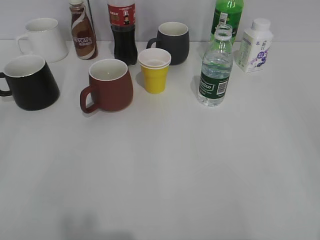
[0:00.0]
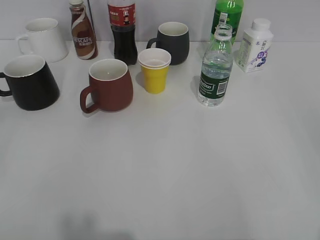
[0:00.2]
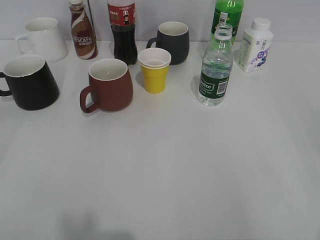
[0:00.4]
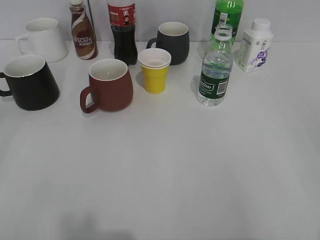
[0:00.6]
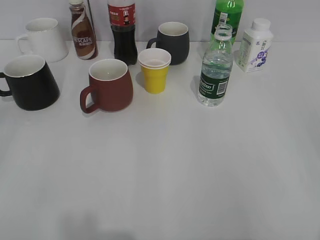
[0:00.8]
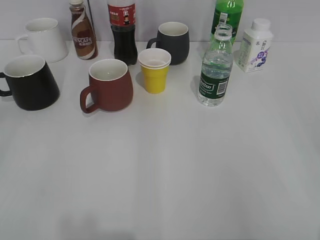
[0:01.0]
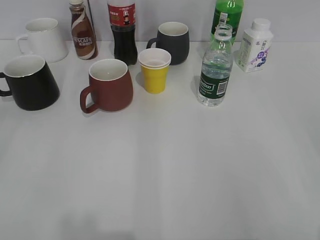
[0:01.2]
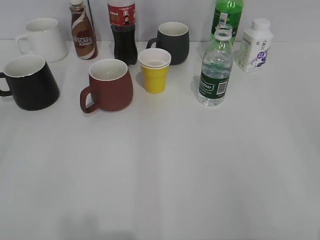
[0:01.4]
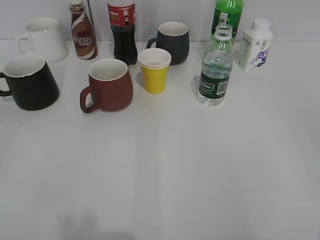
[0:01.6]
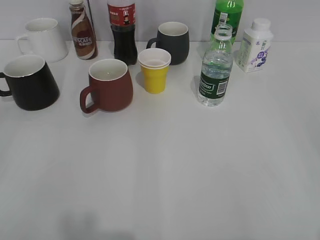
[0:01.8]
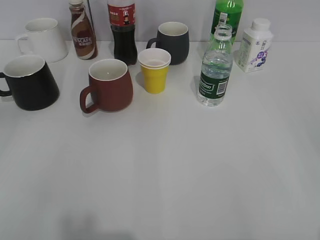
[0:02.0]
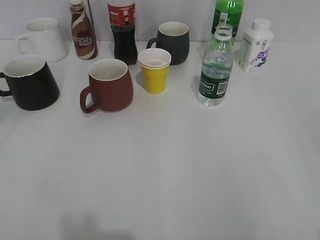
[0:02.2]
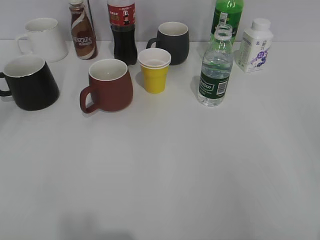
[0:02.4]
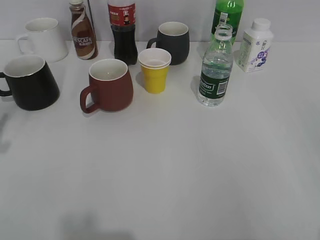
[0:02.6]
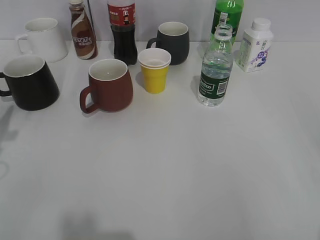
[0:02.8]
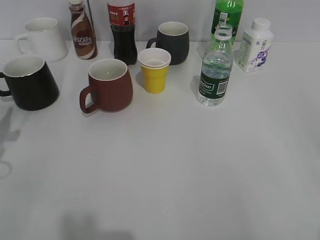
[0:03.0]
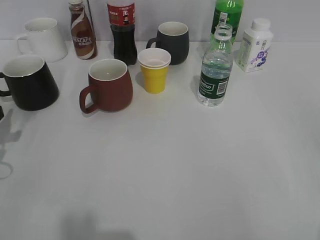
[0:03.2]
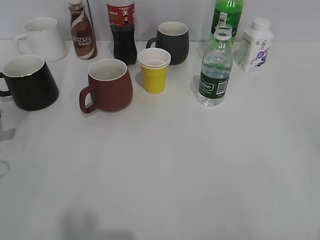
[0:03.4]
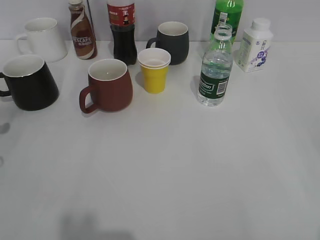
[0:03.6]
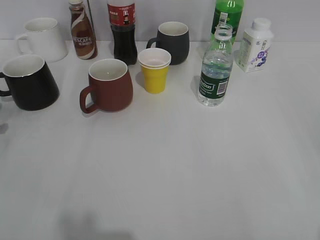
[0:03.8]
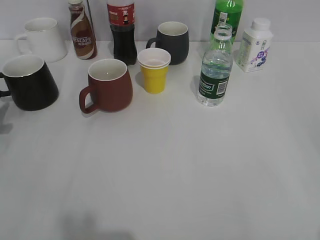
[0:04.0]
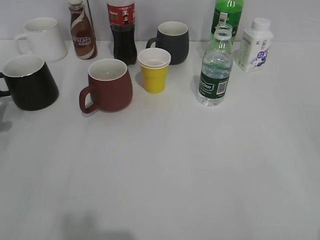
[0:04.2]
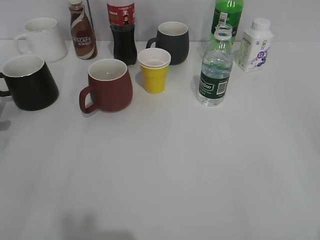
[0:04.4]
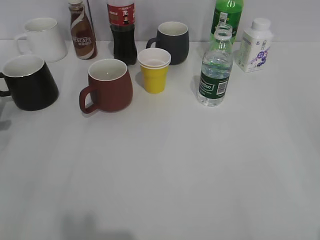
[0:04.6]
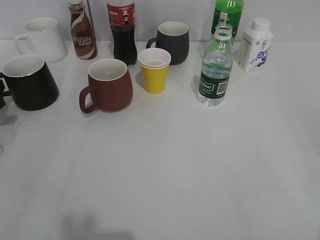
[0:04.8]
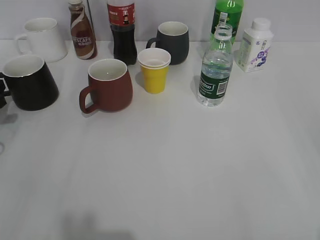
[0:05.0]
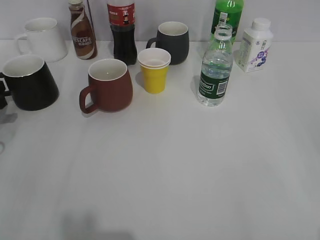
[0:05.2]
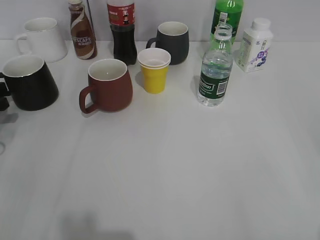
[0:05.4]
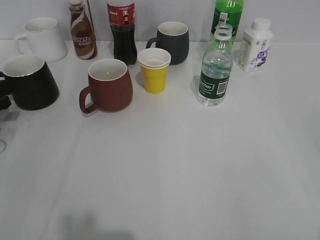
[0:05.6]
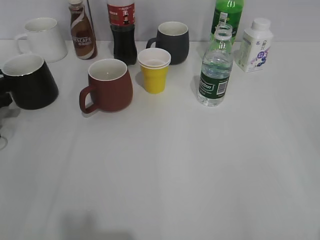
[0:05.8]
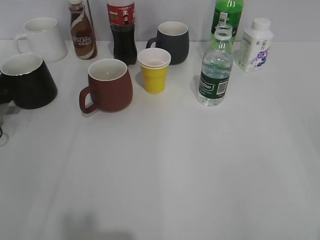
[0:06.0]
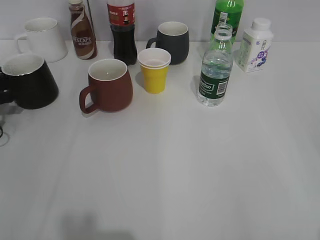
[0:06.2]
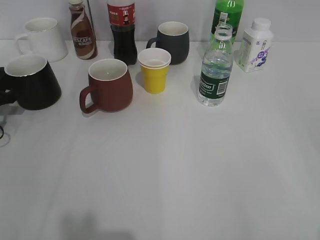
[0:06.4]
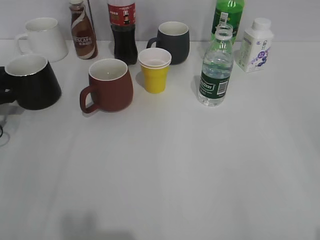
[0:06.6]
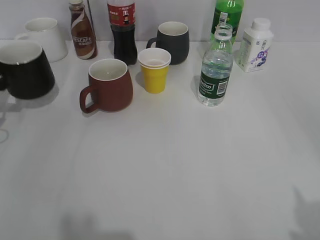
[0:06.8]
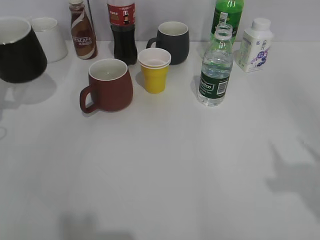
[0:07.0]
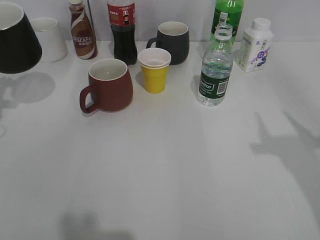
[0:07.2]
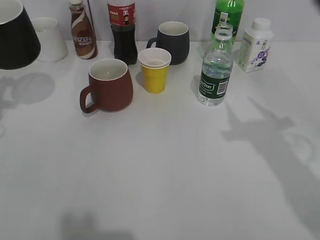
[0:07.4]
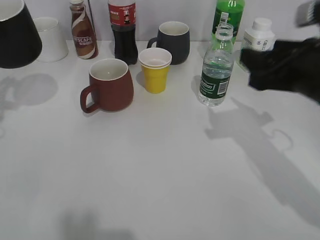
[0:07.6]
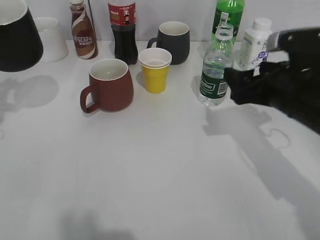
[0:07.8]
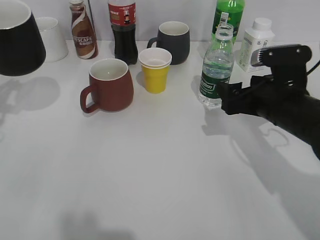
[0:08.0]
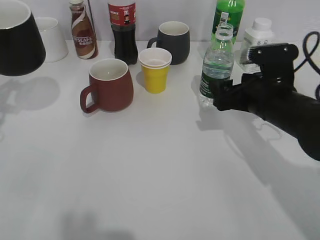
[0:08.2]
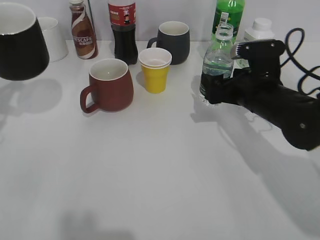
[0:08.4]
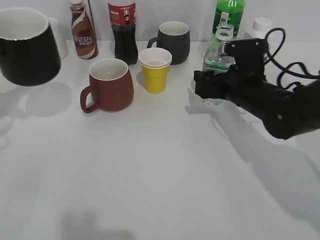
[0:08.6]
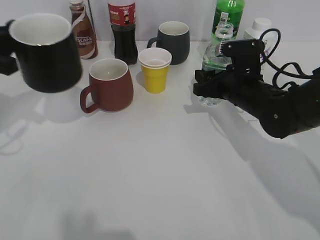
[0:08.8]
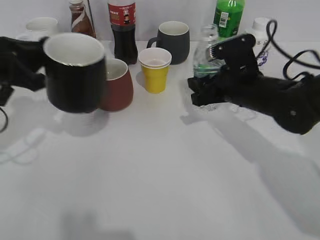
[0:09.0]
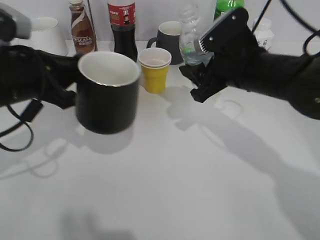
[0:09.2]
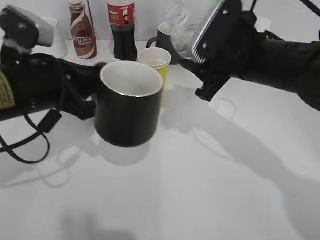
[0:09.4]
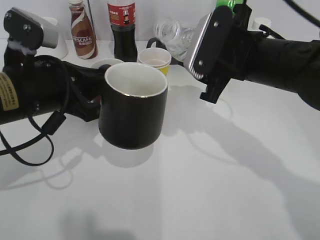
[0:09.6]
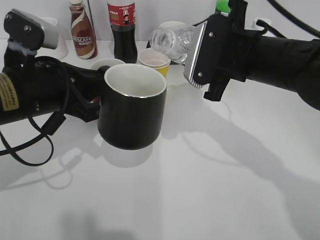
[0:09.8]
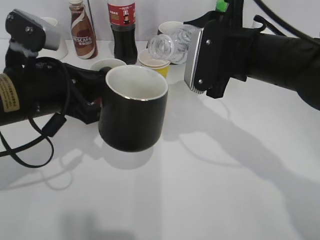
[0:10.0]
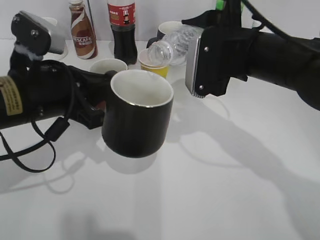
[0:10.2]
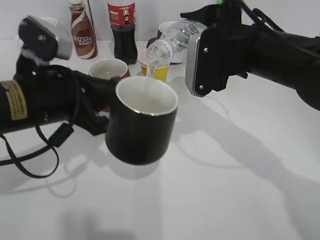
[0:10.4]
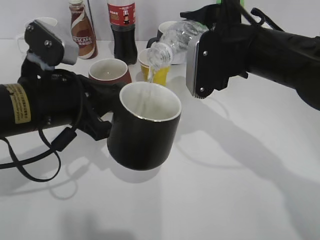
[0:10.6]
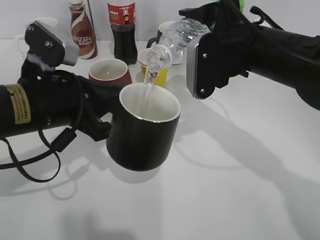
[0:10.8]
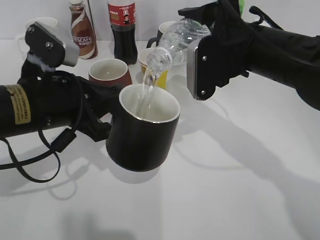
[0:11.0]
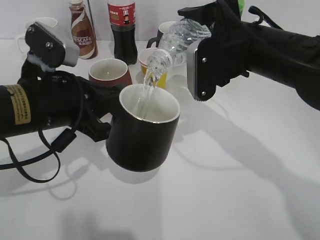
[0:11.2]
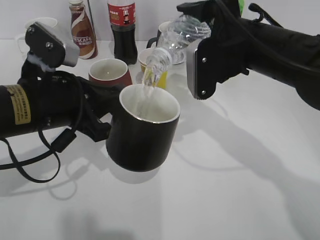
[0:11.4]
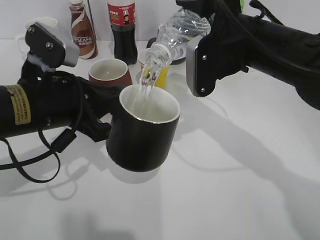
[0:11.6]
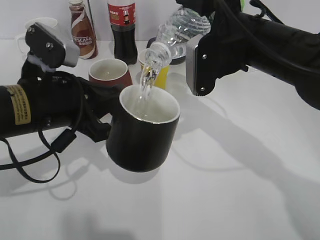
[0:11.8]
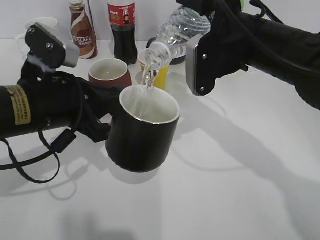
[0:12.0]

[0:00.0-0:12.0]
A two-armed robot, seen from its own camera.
Step, 6.8 to 7.4 s: Lift the black cup with left gripper.
Step, 7.6 to 8.8 s: Grasp the bottle with water with right gripper.
1.6 to 3.0 s: The left gripper shifts roughly 25 cm forward and downward.
4.4 to 6.0 s: The left gripper heads forward, covering some 5 cm.
6.0 to 7.6 s: The right gripper goes some 25 cm forward and to the left; the left gripper is displaced upward by some 15 cm, and closes.
7.6 to 9.0 s: The right gripper travels downward, forward and to the left by about 20 cm, and opens and closes again. Meanwhile the left gripper shifts approximately 10 cm to the right.
9.0 to 10.4 s: The right gripper shifts roughly 10 cm upward. The left gripper is displaced to the right by roughly 10 cm.
10.4 to 12.0 s: The grippers move only a little.

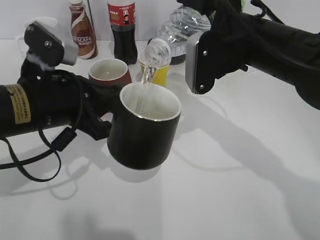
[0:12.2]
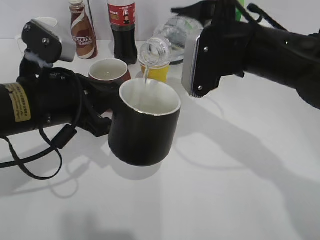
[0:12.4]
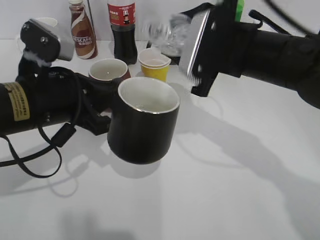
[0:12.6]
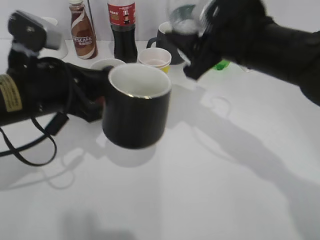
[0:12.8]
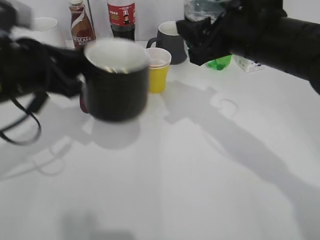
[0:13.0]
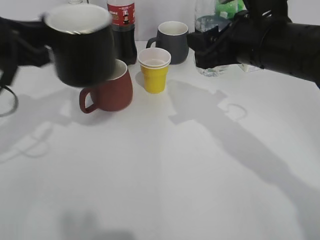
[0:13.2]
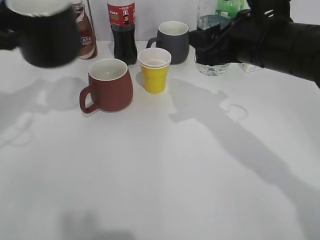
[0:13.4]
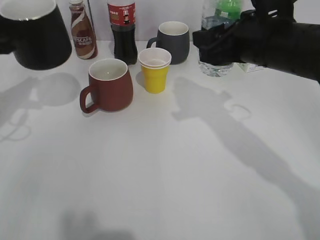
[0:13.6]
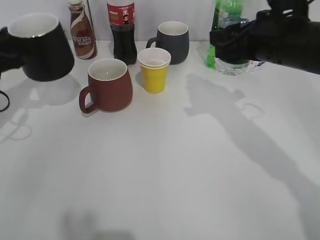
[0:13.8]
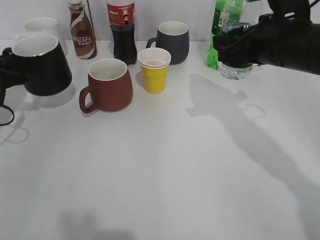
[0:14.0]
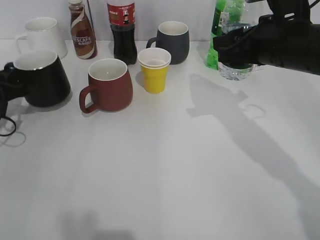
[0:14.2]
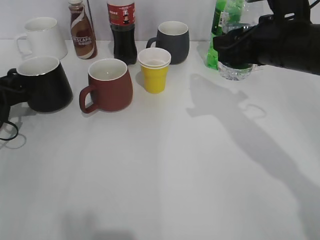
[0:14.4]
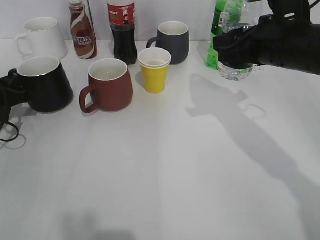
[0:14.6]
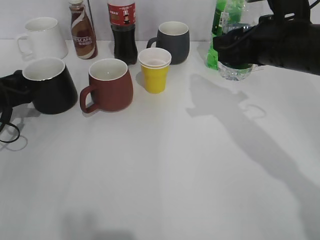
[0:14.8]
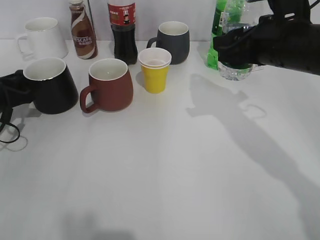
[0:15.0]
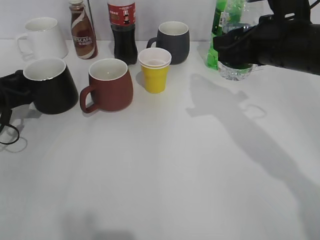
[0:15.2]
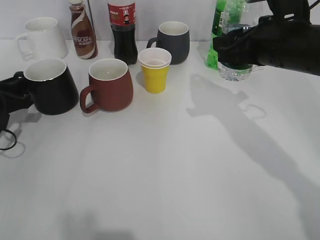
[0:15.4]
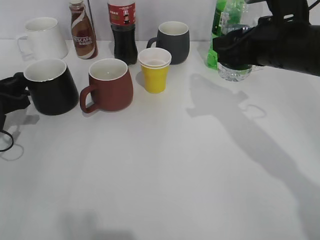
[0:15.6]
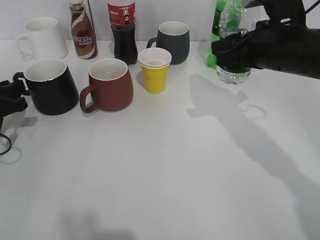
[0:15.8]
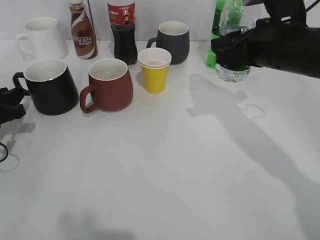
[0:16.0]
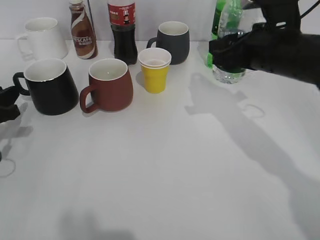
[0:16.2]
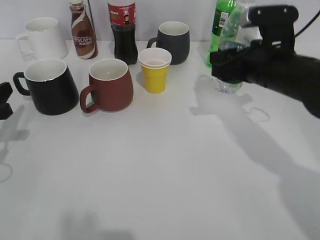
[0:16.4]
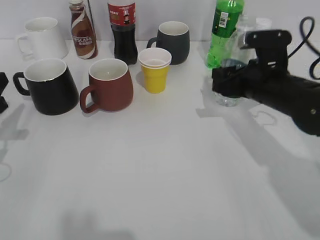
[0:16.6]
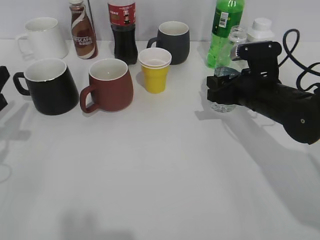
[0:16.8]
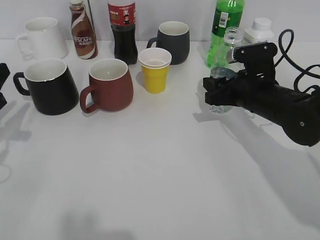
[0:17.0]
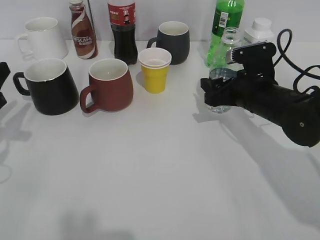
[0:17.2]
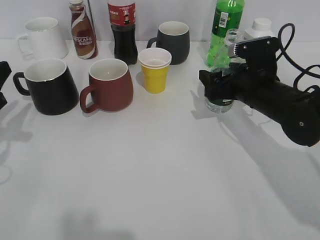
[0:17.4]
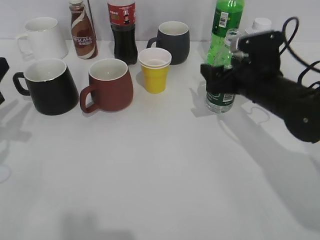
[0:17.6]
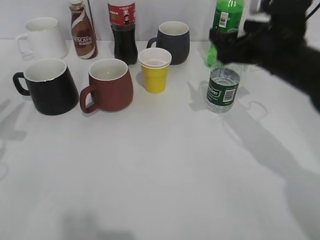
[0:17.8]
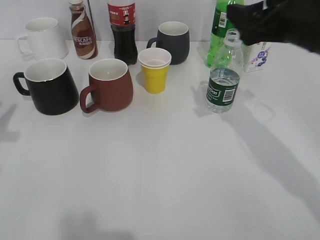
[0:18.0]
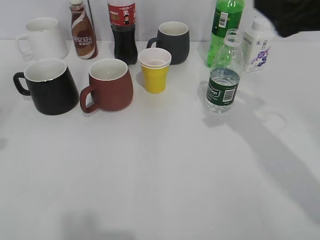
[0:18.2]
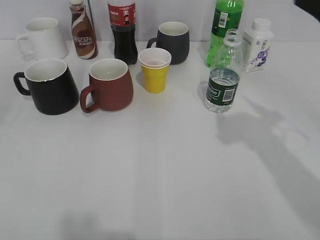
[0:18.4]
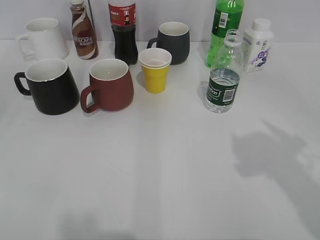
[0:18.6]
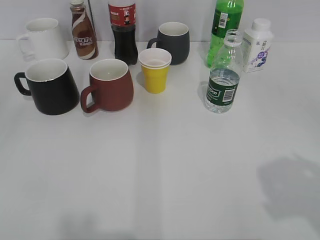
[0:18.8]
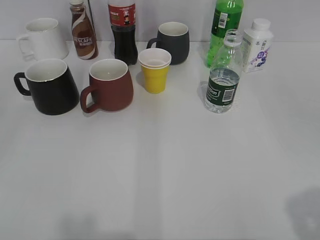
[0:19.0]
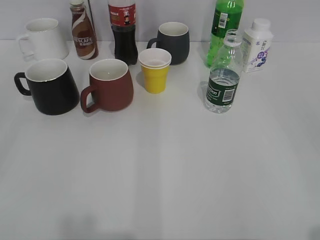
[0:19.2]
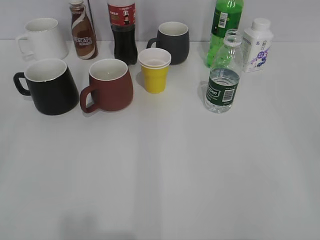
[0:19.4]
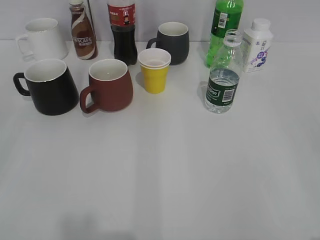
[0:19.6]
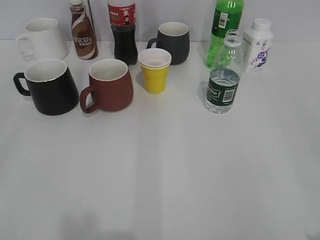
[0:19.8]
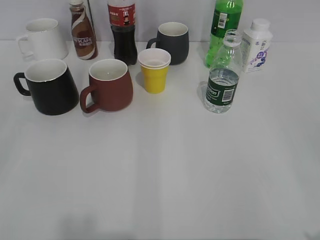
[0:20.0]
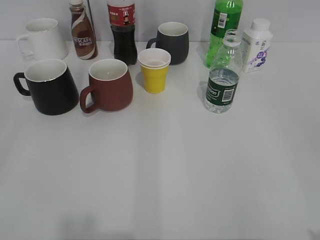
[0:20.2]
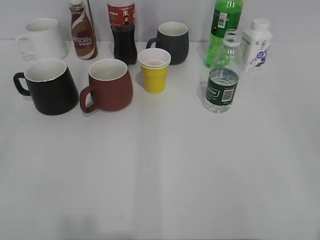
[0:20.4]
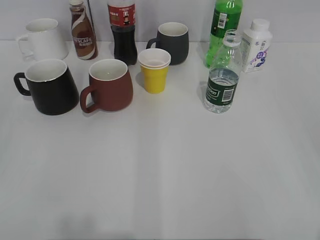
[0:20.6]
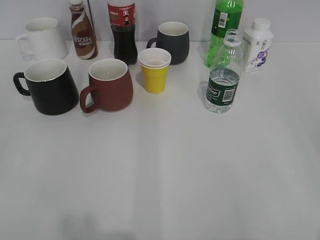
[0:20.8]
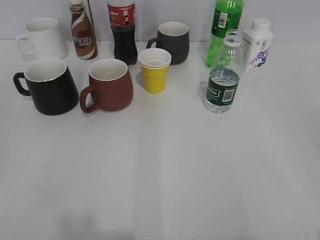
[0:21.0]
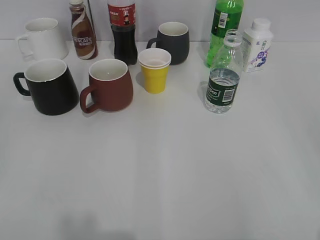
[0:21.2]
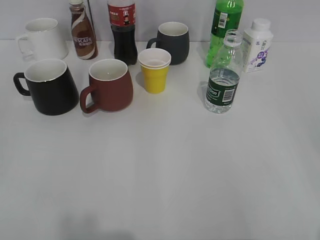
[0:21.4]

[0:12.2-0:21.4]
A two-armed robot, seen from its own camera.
Step, 12.6 to 14.6 s: Place the black cup on the table with left gripper.
Step, 15.0 to 17.6 s: Place the water bottle on the table with right gripper.
12.2 to 13.8 s: The left gripper goes roughly 15 cm to the left and forward.
13.8 to 15.2 s: The left gripper shifts approximately 10 cm downward.
15.2 to 16.8 s: The left gripper heads backward and upward, covering roughly 10 cm; the right gripper travels downward by approximately 10 cm.
16.8 to 18.4 s: The grippers both shift upward and backward by approximately 20 cm. The right gripper opens its fingers.
18.4 to 19.8 s: The right gripper heads backward and to the right, covering some 25 cm.

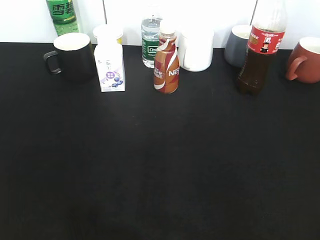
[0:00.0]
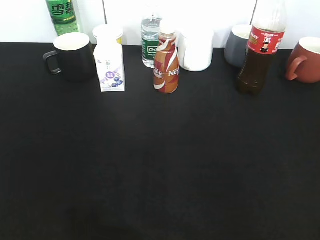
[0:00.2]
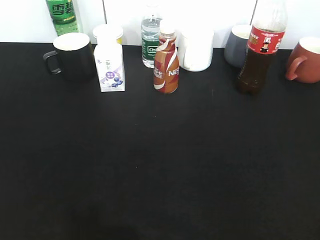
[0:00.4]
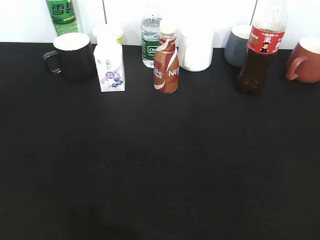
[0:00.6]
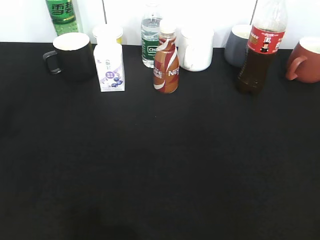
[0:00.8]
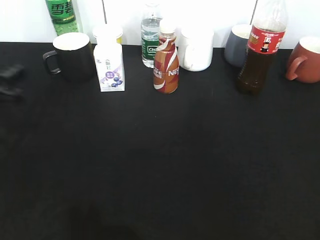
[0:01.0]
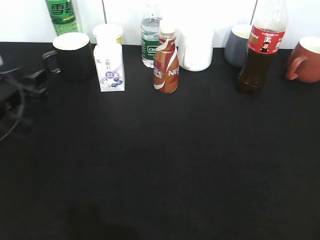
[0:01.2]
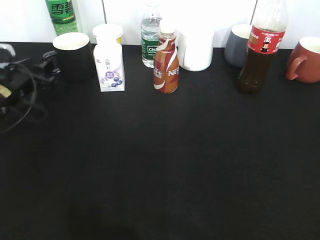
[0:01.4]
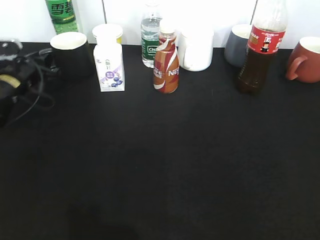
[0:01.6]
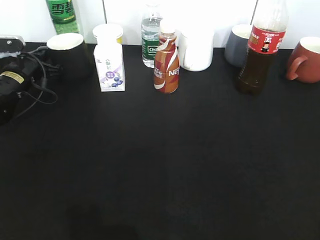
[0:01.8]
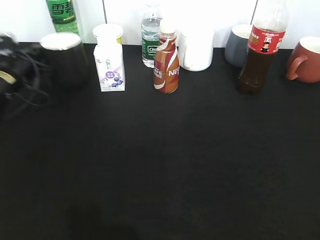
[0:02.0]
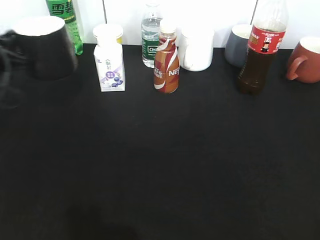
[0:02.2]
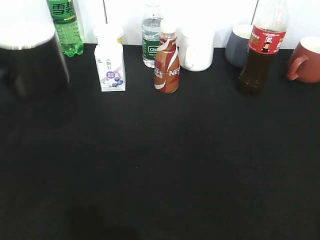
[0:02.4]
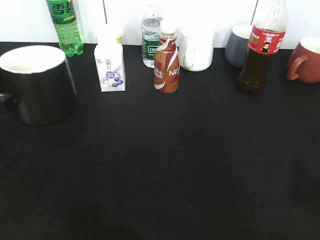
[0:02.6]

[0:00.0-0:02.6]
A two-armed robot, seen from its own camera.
Step, 0.0 to 1.6 s: Grasp the black cup with left gripper.
0.0 to 1.2 s: The left gripper is displaced forward and downward by approximately 40 cm.
1.2 to 2.6 s: The left gripper goes some 15 cm backward and upward, and closes its fingers. The right gripper moves forward, some 10 cm.
